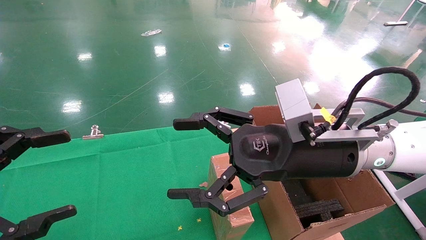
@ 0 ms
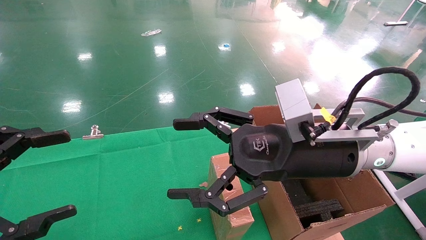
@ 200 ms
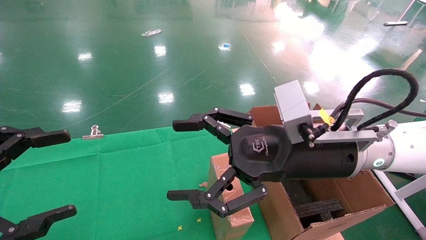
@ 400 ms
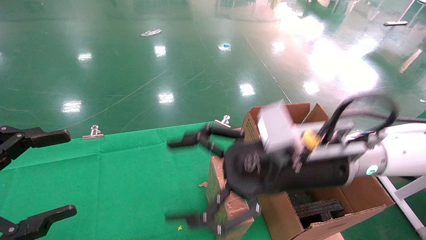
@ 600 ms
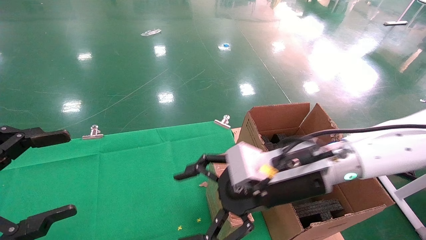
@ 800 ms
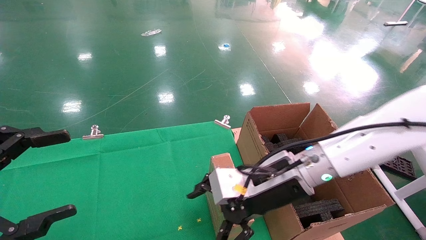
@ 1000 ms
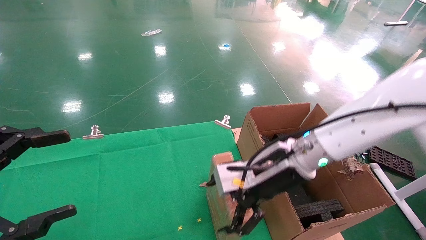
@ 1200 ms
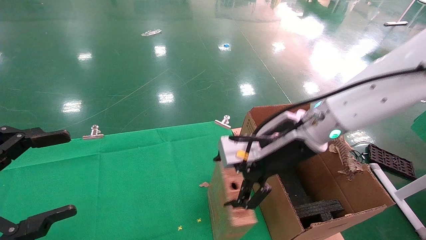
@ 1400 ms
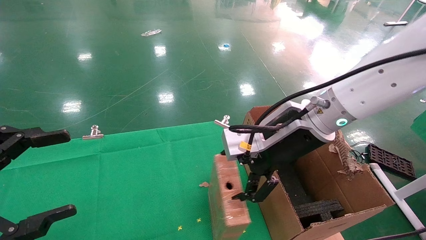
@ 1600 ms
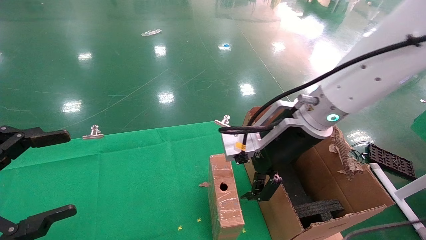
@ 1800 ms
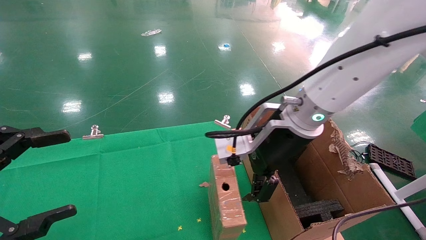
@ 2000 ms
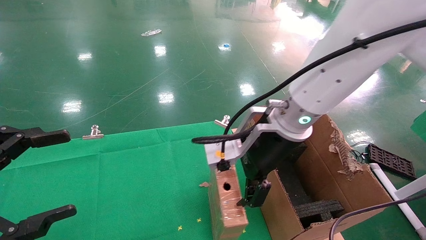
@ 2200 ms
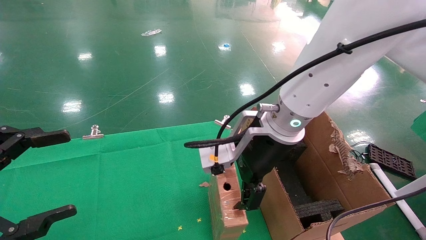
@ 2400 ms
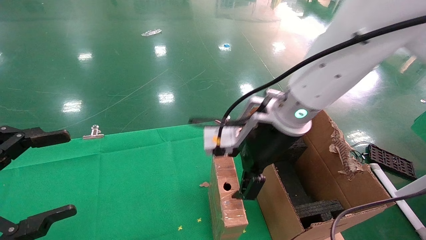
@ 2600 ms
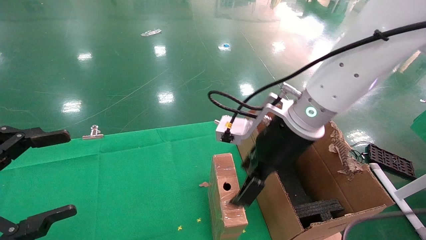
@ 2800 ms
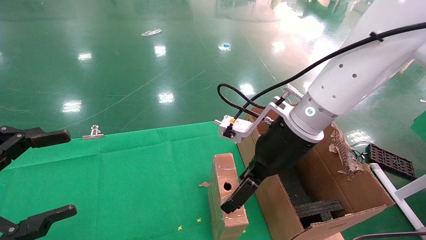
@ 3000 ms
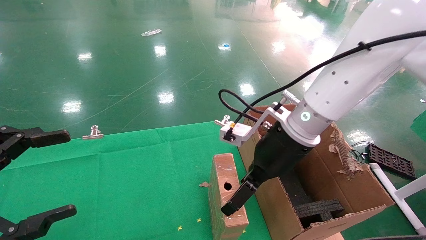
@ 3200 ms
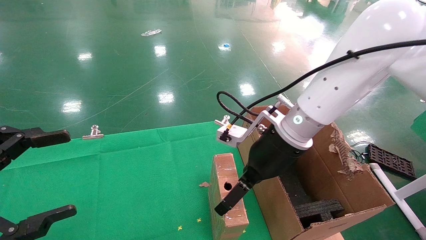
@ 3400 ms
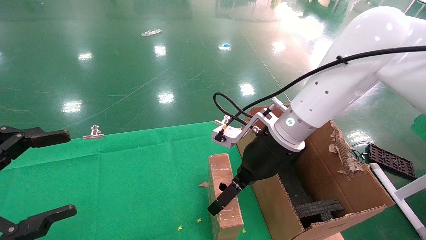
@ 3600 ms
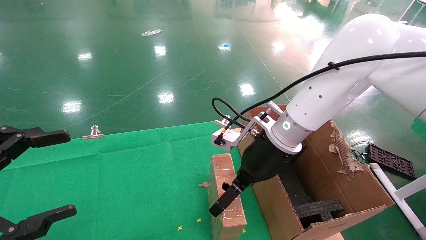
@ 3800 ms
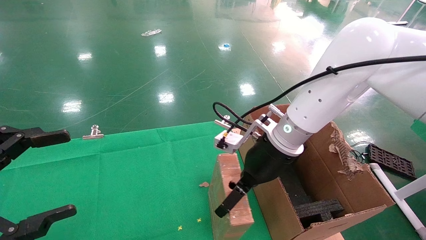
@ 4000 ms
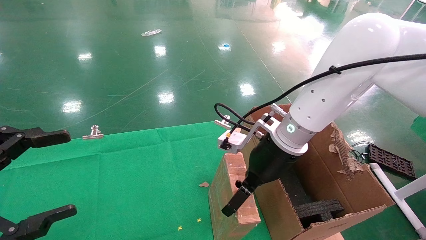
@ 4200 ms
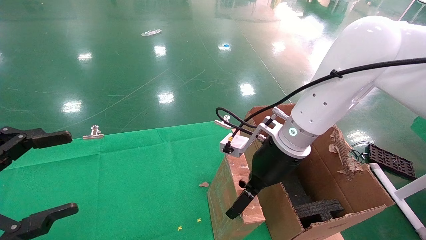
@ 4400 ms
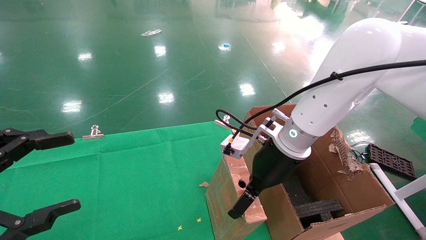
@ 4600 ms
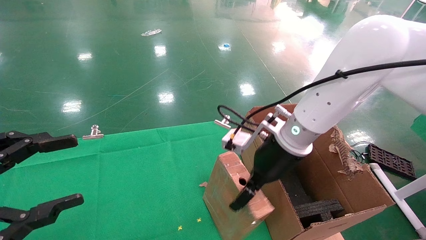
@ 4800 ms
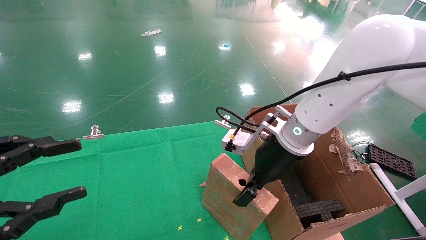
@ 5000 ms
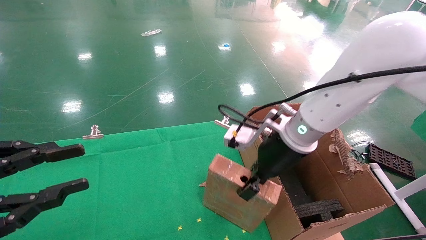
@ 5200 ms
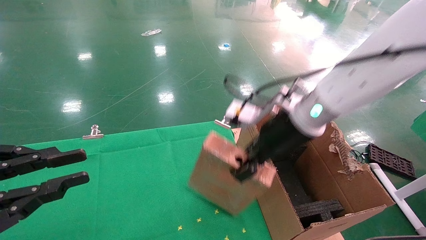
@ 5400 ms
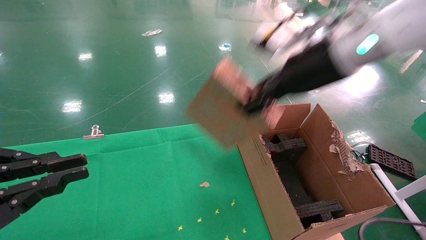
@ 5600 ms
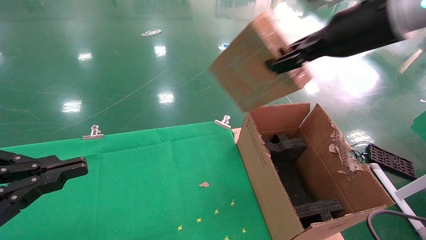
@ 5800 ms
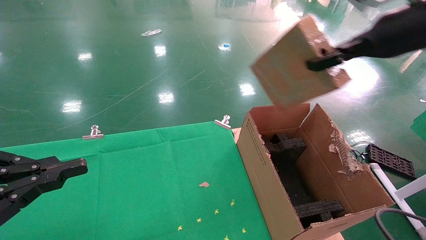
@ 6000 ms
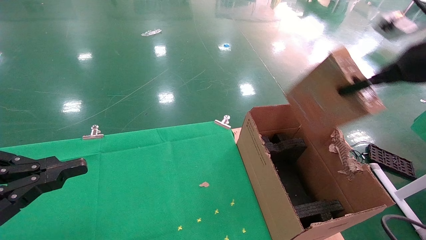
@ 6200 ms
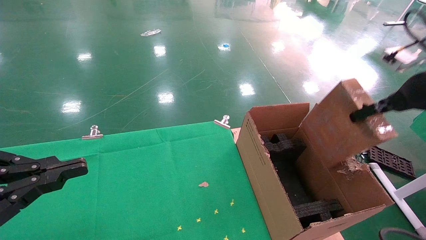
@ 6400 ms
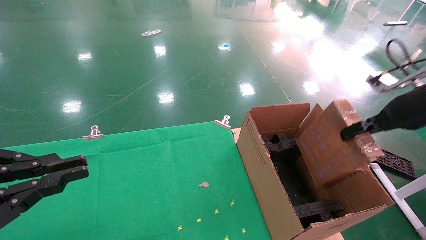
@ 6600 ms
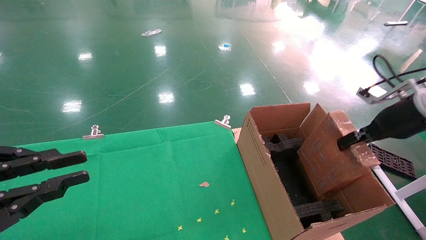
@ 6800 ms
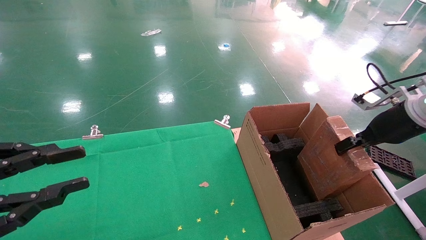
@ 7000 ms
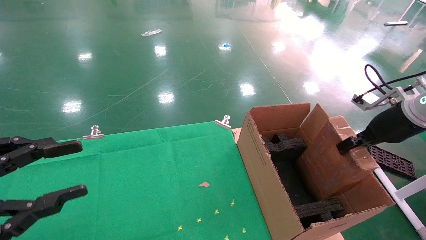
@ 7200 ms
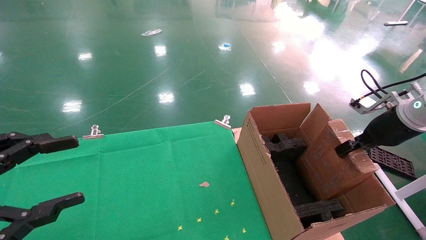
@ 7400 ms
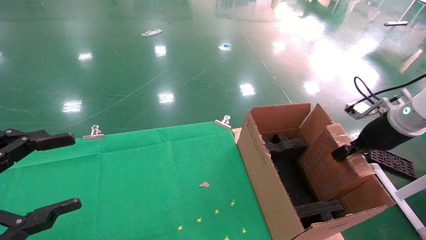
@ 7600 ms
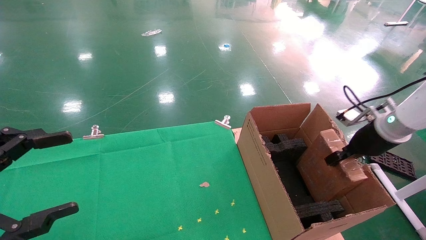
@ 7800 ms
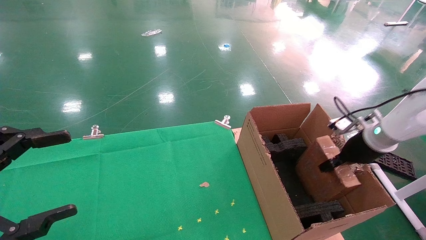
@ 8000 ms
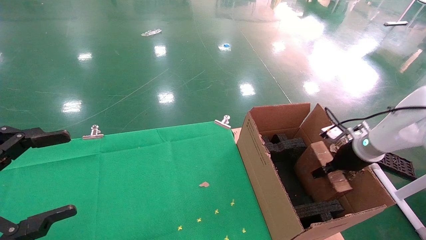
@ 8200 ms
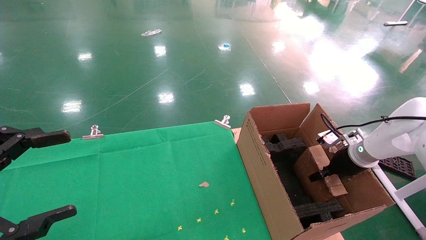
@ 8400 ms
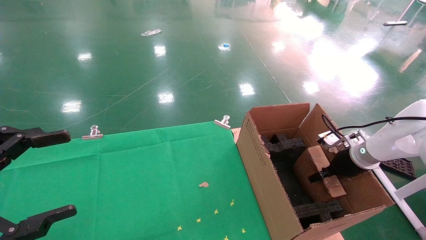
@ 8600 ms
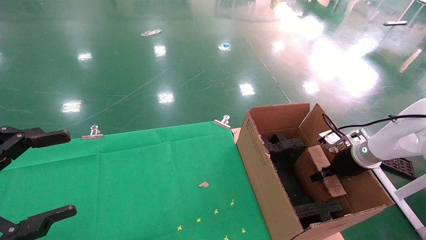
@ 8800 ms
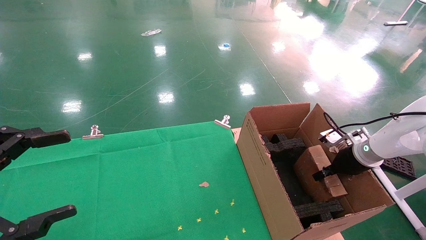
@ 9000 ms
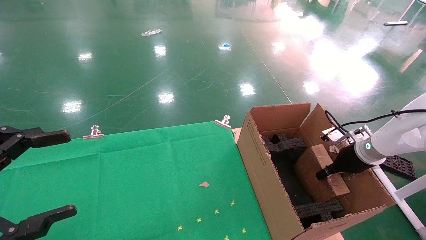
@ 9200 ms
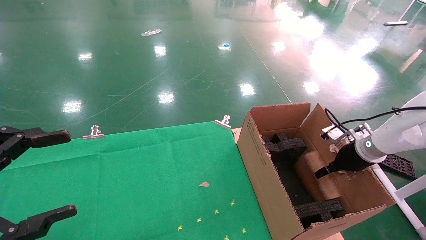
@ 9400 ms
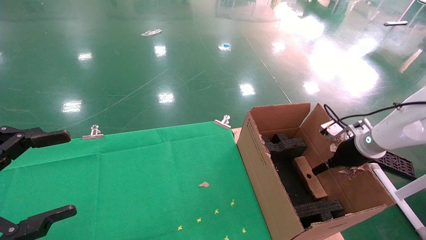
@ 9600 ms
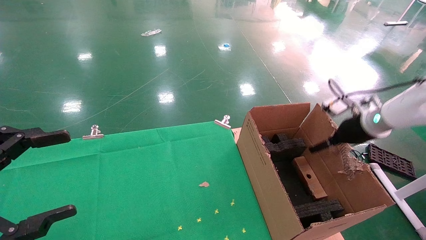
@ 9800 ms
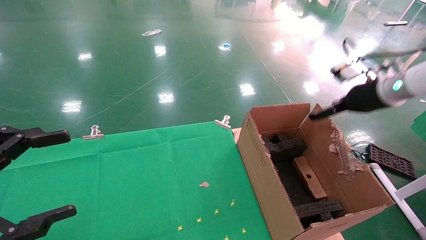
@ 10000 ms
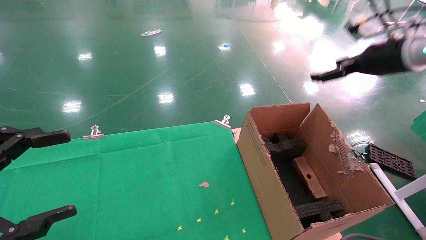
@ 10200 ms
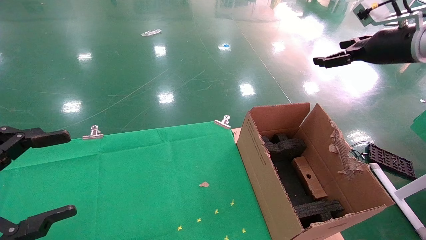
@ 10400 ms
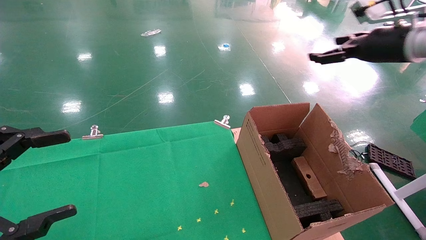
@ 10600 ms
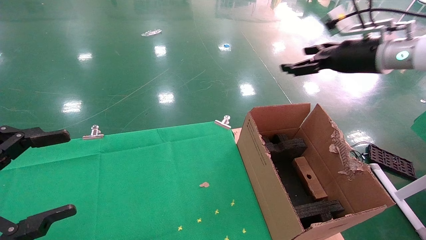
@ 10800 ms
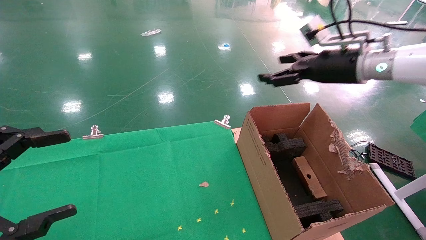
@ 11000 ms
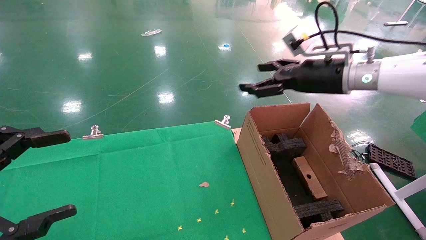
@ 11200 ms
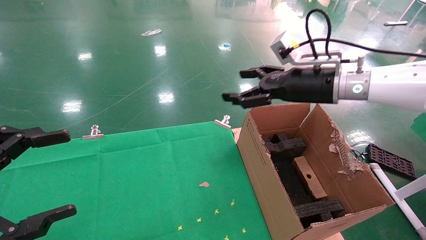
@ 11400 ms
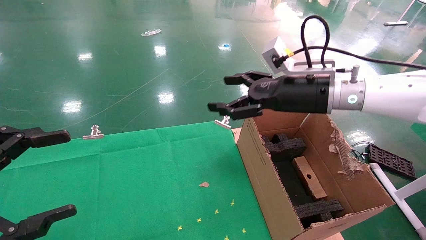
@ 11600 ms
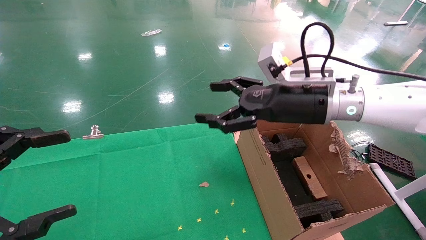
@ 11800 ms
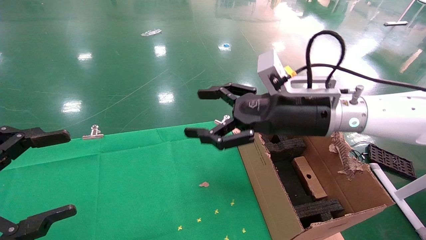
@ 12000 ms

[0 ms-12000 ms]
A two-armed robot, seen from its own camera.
Task of the whole recording: using a robotic arm to pick up a cardboard box and palace it the carton.
Step, 800 ms to 5000 ms: Pick up the mouse and the power cord paper box.
Step, 5200 ms to 9400 ms: Place the mouse and the power cord paper box into the container.
0 ms to 1600 ms: The right gripper heads forward, covering about 5 cm.
3000 ms to 4400 ms: The grippers move only a little.
4400 ms to 6000 ms: The left gripper closes up. Meanwhile the right gripper travels to the right and upward by some 25 cm, and closes its fingers.
6000 ms to 7600 ms: The left gripper opens up, while the right gripper travels downward and to the right by some 20 cm.
7600 ms to 9000 ms: The right gripper travels downward by about 10 cm.
9000 ms to 10400 ms: The right gripper goes approximately 25 cm upward, and opens.
10400 ms to 12000 ms: The right gripper moves to the left and downward, about 25 cm.

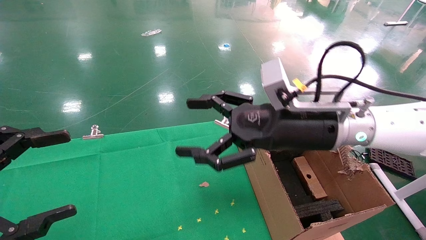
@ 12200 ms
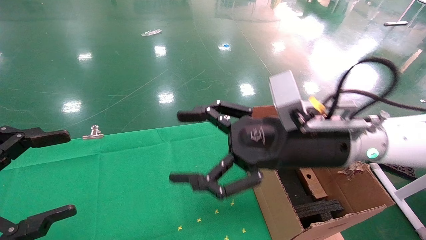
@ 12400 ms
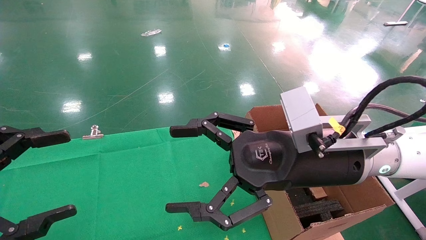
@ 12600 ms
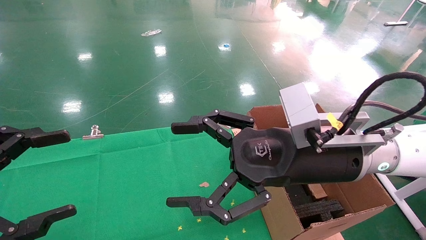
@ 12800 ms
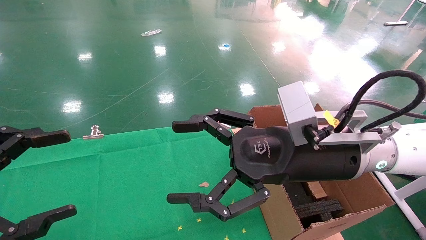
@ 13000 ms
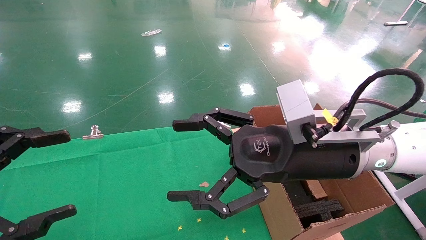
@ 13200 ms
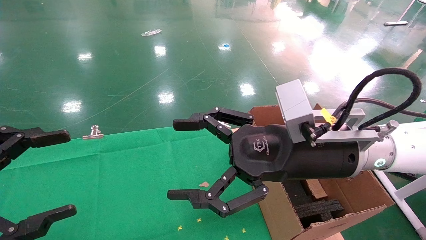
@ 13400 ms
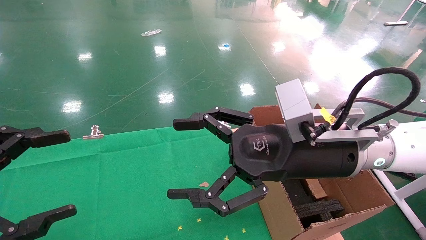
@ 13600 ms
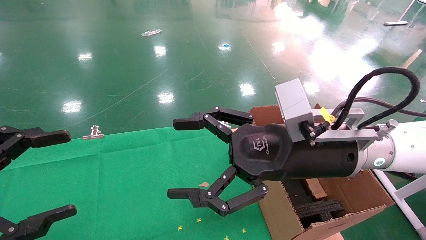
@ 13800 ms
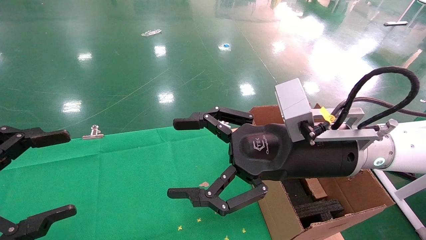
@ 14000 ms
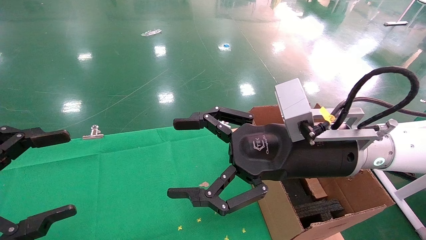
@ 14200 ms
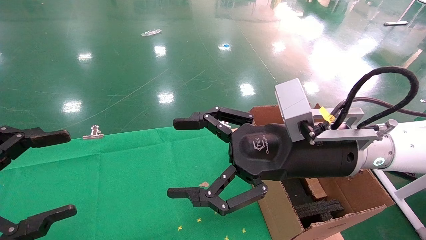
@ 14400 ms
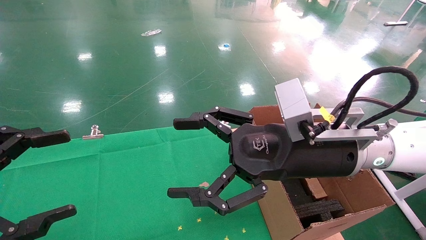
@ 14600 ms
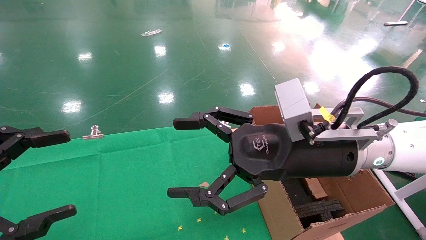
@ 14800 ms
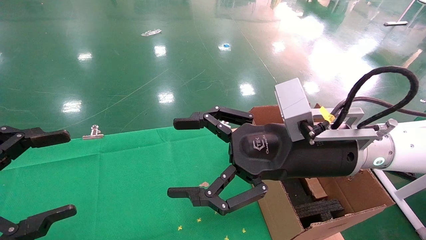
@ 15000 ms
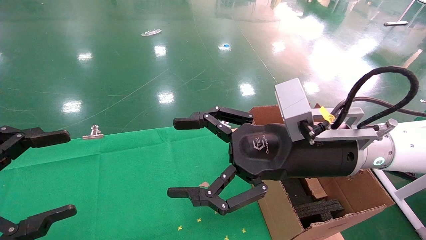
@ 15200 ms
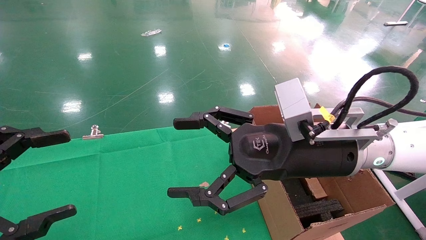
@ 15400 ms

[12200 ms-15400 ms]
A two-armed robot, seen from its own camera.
Task of the whole recording: using a robotic arm to pick up a cardboard box and palace it the carton.
12200 ms to 13800 ms: The grippers make only small movements.
13800 ms to 15400 ms: Neither gripper changes place.
